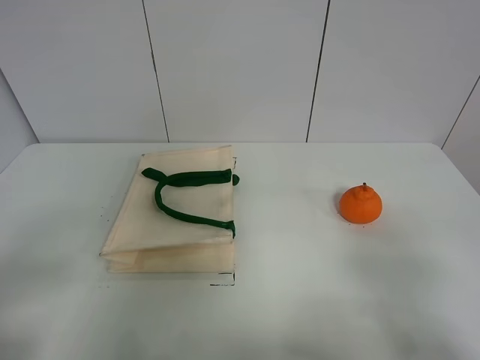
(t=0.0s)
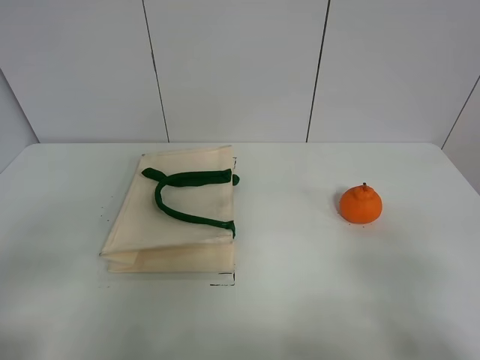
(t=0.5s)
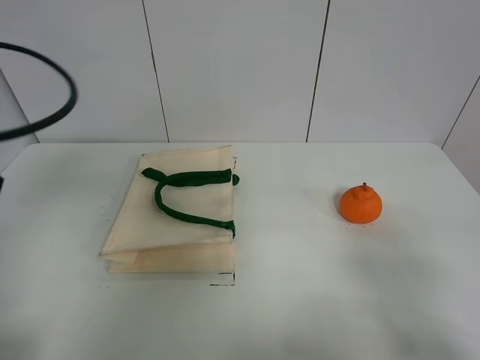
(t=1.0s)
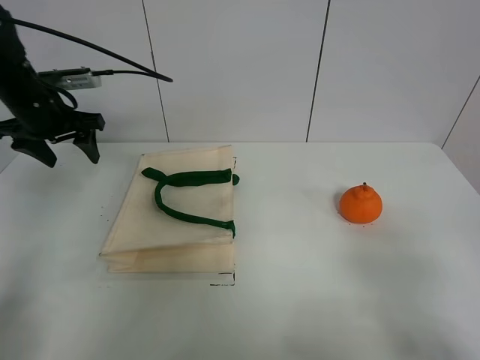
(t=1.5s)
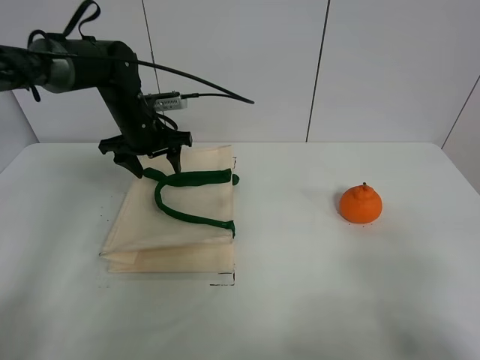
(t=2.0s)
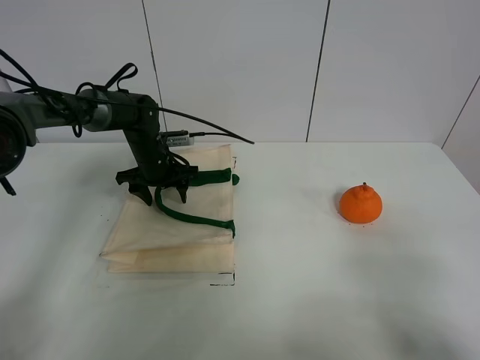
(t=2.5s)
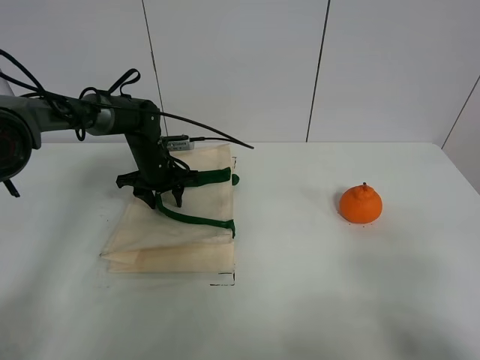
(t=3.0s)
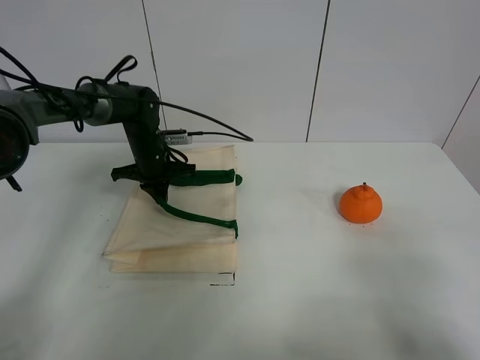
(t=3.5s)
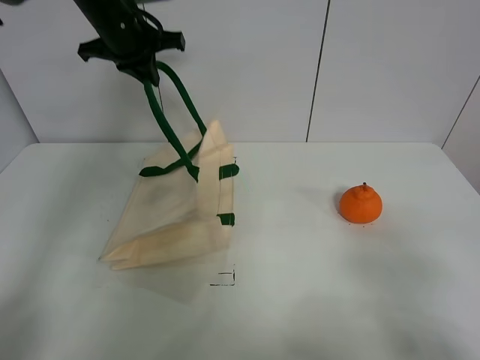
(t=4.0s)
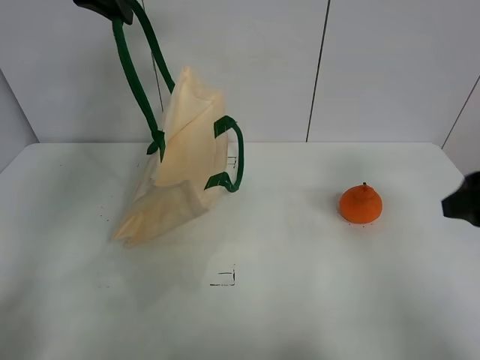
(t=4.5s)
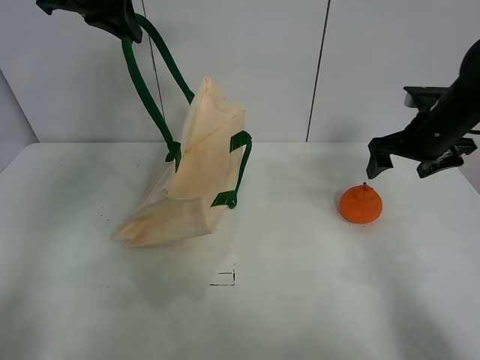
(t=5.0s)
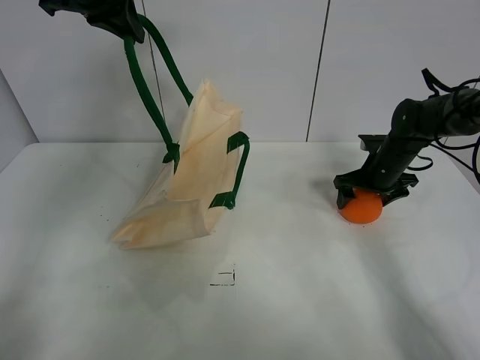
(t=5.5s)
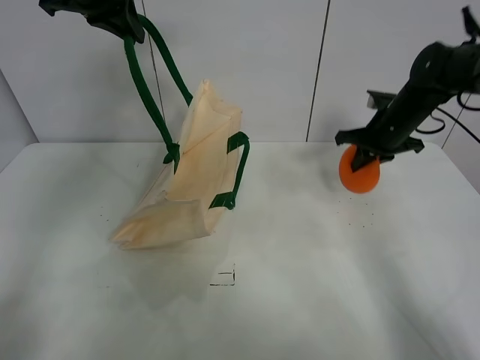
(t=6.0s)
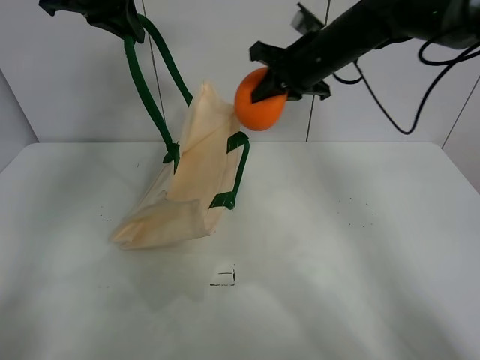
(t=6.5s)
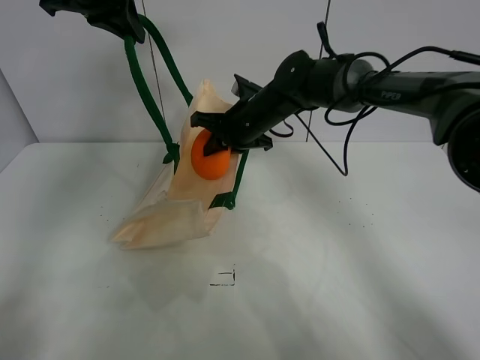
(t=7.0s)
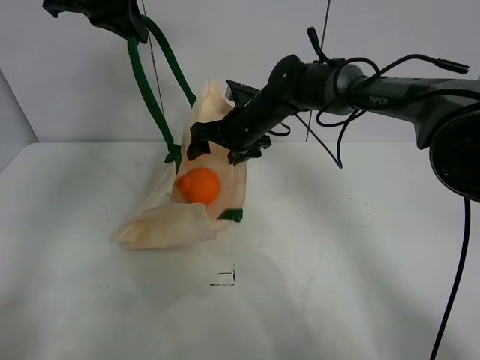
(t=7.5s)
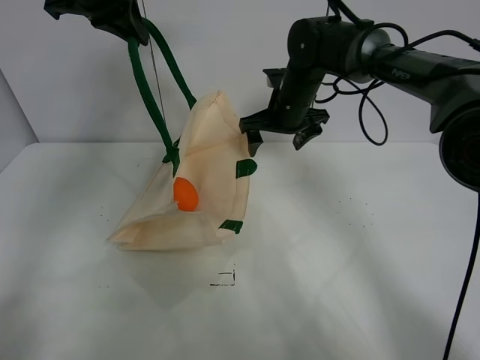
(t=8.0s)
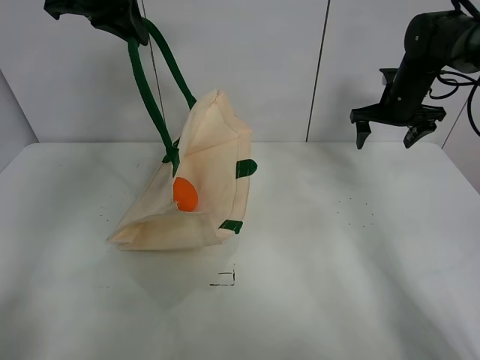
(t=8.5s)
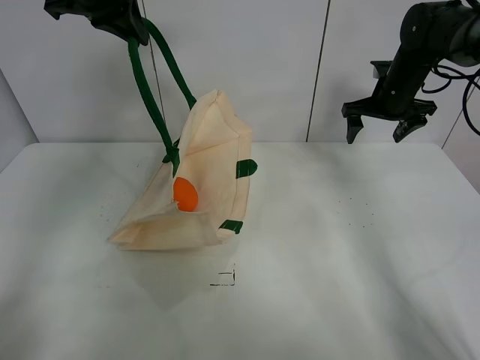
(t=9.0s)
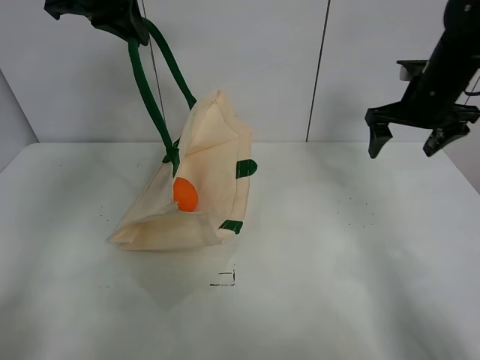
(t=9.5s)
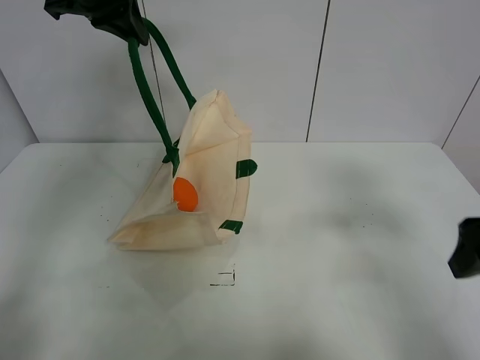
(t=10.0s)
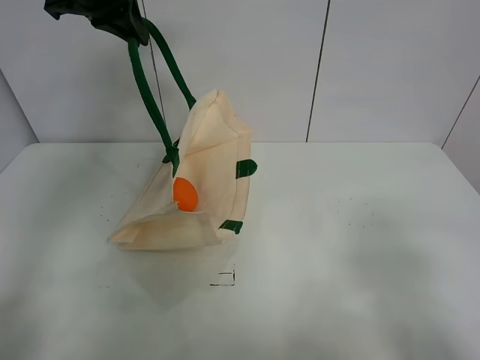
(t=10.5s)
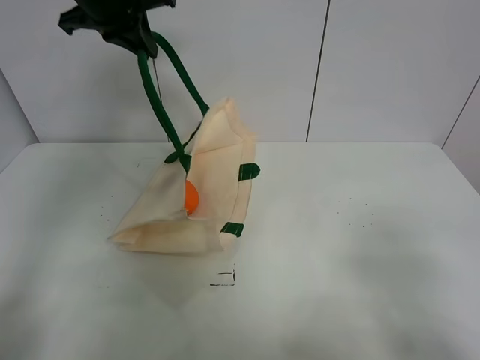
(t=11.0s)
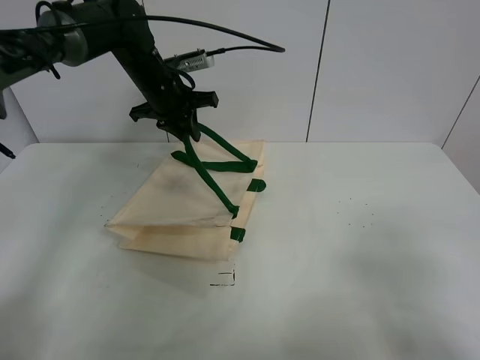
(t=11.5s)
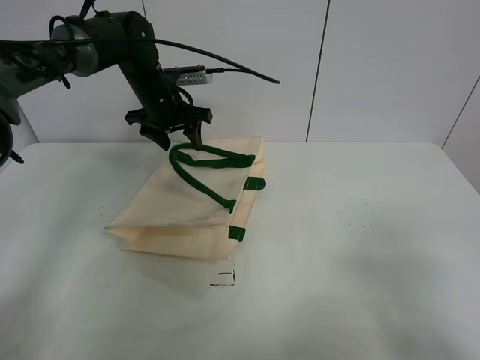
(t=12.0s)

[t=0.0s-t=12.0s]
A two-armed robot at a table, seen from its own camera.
Task of the whole recording: open the white linen bag and put the orange in the bag.
Step, t=0.0s to t=4.0s: Lift the handbag with left gripper.
Step, t=4.5s to t=5.5s: Grasp the orange with right gripper.
Step, t=6.0s to t=7.5s: Place the orange in the handbag with right gripper.
t=0.0s to t=2.0s: The left gripper shifts roughly 40 cm forward.
t=2.0s to t=4.0s: The left gripper travels upward by about 15 cm, and closes its fingers.
t=4.0s to t=6.0s: The left gripper goes roughly 5 cm upward. The right gripper goes roughly 40 cm forward, and closes its fingers.
t=6.0s to t=8.0s: The right gripper moves to the left, some 15 cm, and opens up.
t=8.0s to t=10.0s: The right gripper is displaced backward and to the right by approximately 35 cm.
t=10.0s to t=12.0s: The left gripper goes some 20 cm downward, and opens. Meanwhile the right gripper heads backward, covering about 15 cm.

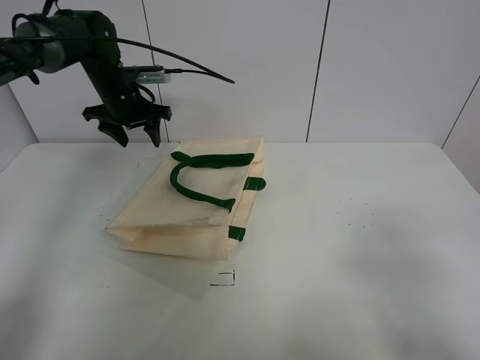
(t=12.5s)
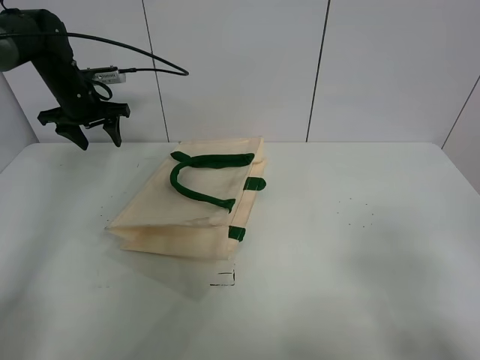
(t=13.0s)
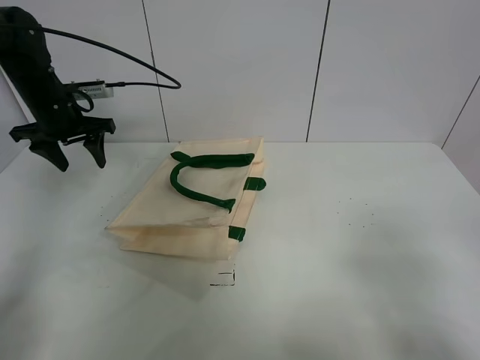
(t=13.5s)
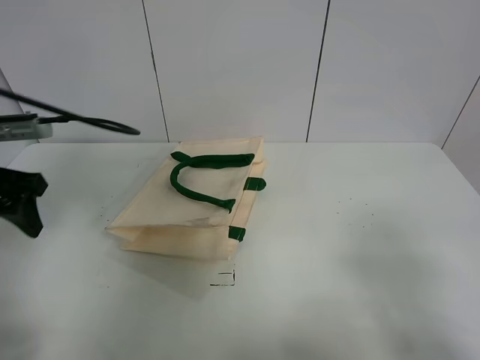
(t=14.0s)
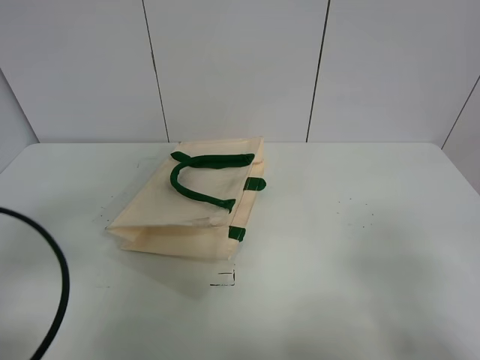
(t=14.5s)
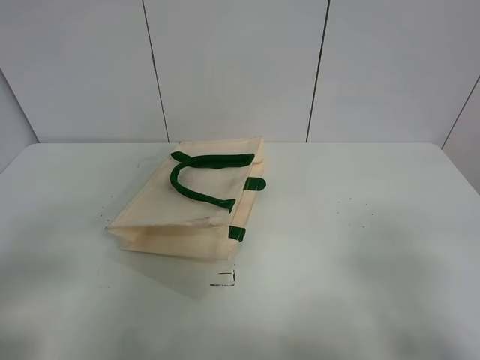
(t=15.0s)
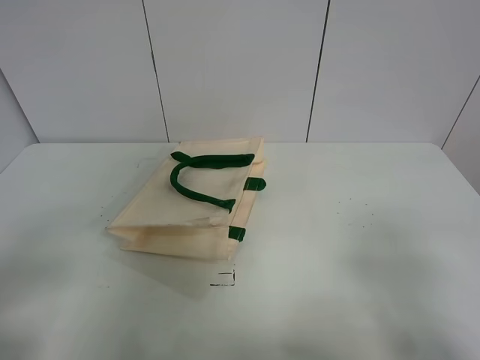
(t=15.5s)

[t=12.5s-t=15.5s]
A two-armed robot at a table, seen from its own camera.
Task of the whole recording: open the white linen bag and put the orange in the bag.
t=12.5s to t=14.0s: The left gripper moves backward, some 25 cm.
t=14.0s to t=15.5s: The left gripper is displaced backward by approximately 25 cm.

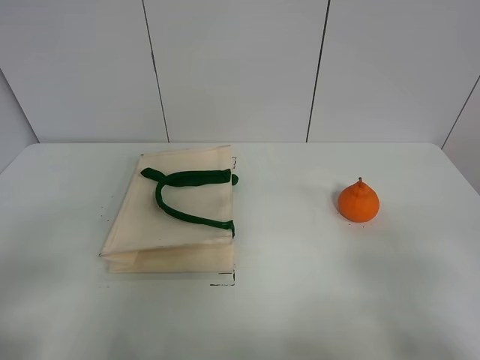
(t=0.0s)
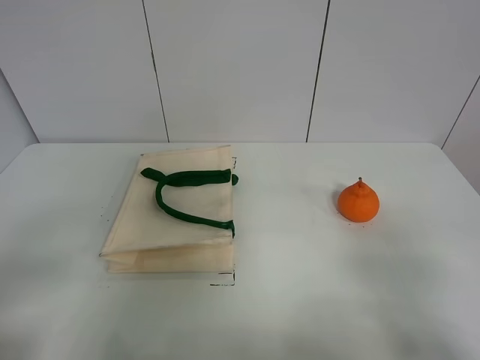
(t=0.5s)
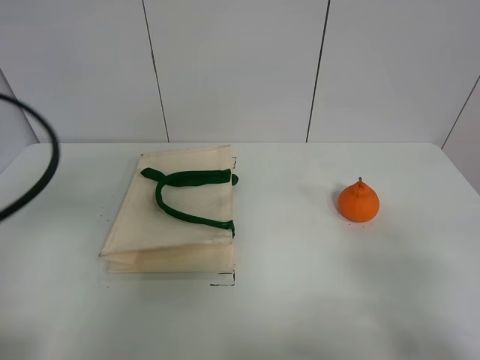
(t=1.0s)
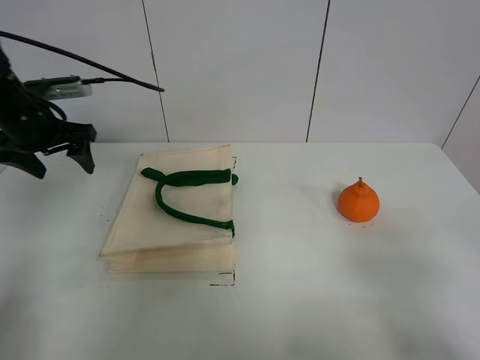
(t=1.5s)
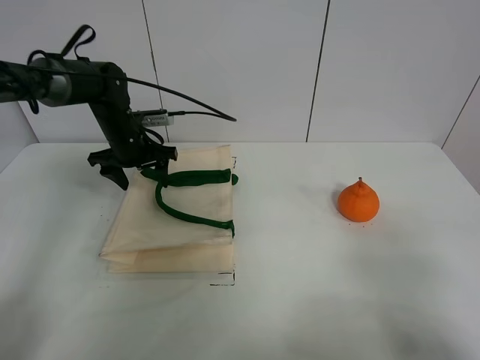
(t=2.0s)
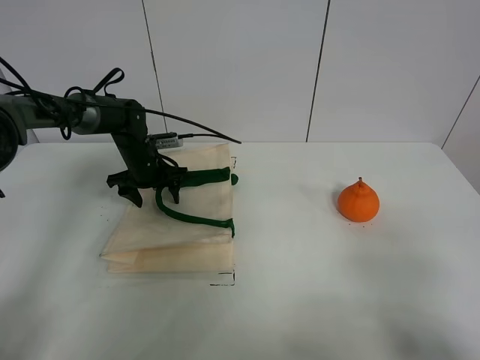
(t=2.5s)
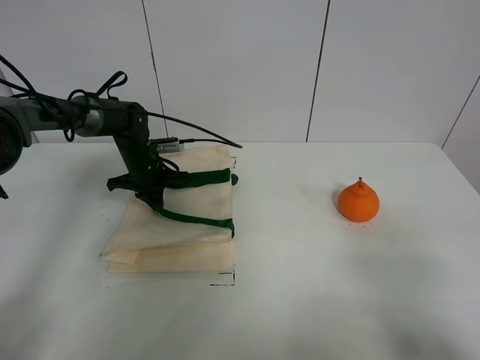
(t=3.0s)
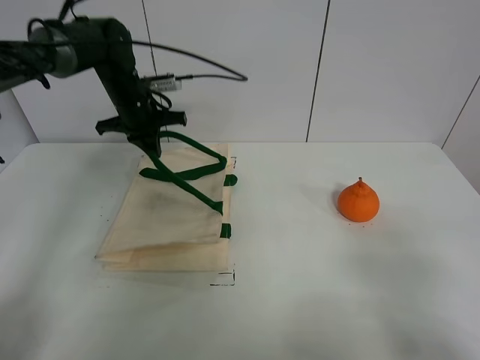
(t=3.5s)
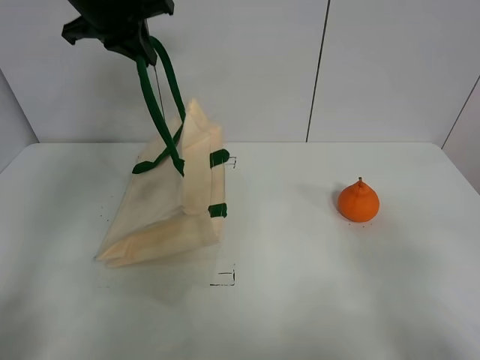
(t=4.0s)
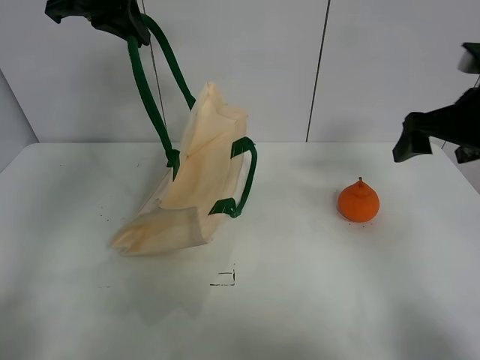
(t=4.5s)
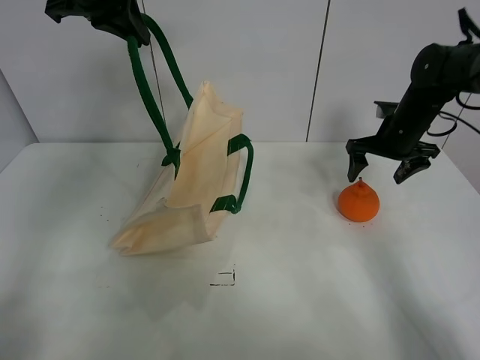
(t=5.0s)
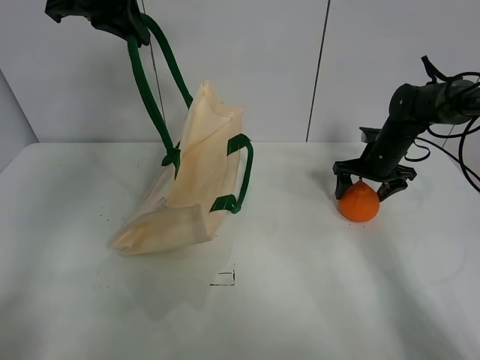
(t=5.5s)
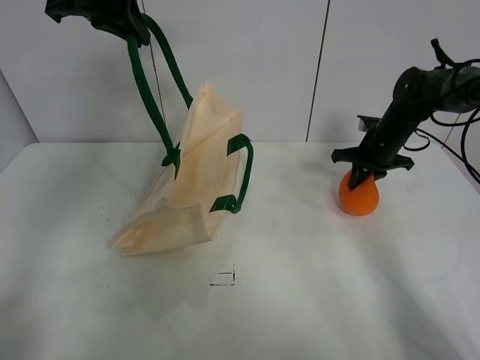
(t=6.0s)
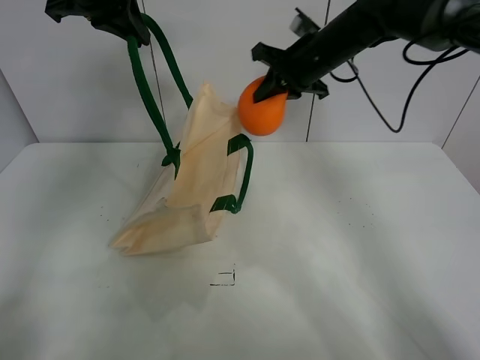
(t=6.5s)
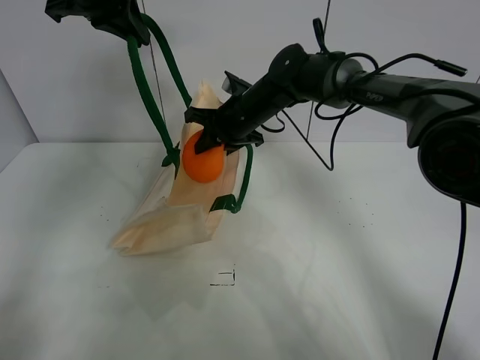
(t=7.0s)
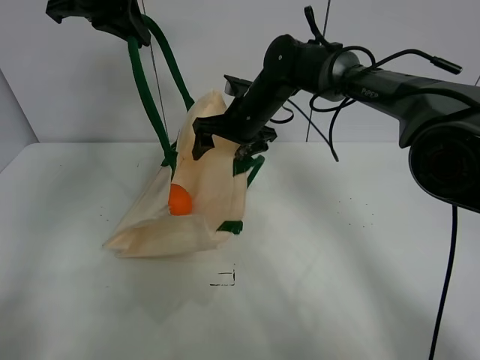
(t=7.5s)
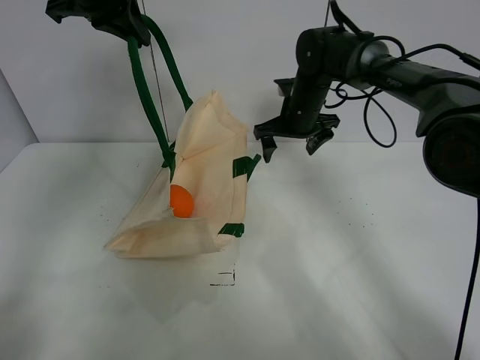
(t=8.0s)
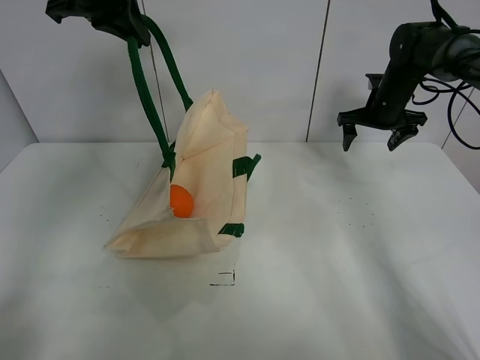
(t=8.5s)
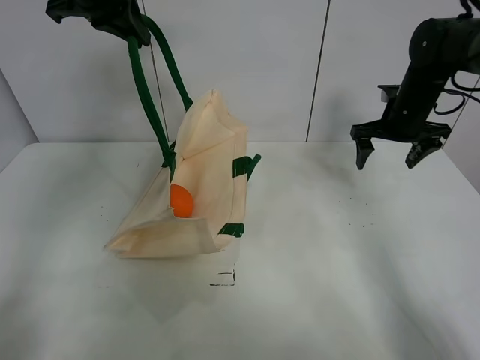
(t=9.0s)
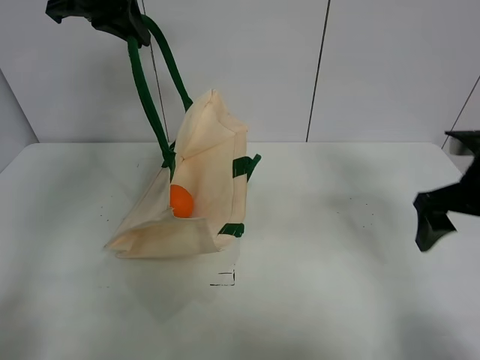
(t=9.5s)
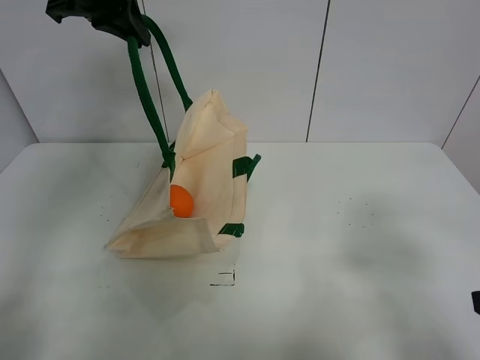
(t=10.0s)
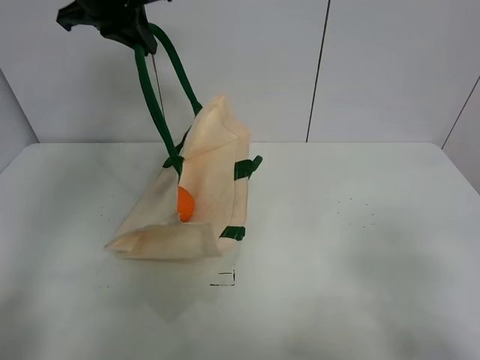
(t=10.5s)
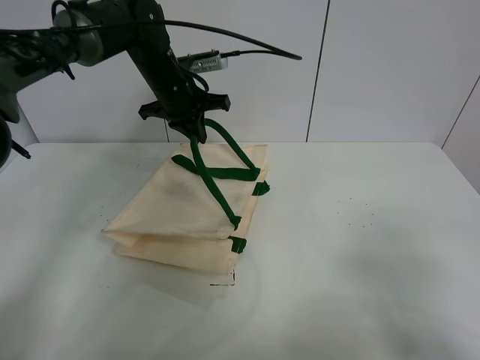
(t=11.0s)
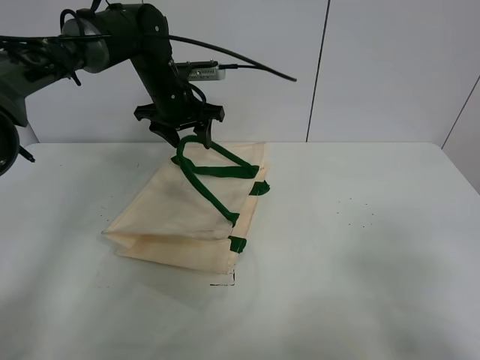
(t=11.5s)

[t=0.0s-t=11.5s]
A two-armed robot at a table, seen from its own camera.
Task of the whole recording: open the white linen bag and put the orange in the bag.
Step, t=0.0s to t=3.5s: Lift the handbag with left gripper.
Step, t=4.0s to t=5.5s: Grasp the orange with right gripper.
Step, t=6.0s to t=7.5s: Place the orange in the handbag with right gripper.
t=0.0s to t=2.0s: The left gripper is displaced forward by some 40 cm.
t=2.0s to t=4.0s: The left gripper travels upward by about 25 cm, and closes its fingers.
t=4.0s to t=6.0s: The right gripper goes approximately 40 cm forward, and closes.
t=6.0s to t=7.5s: The right gripper shifts approximately 25 cm to the left, and opens.
t=7.5s to t=9.5s: The right gripper heads to the right and backward, covering approximately 35 cm.
t=9.5s to t=11.5s: The left gripper goes approximately 20 cm downward, and opens its fingers; the right gripper heads backward, covering some 20 cm.
